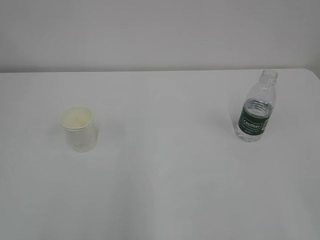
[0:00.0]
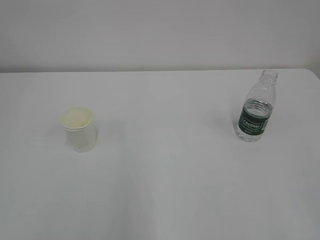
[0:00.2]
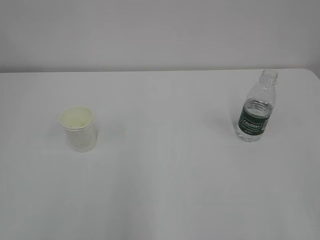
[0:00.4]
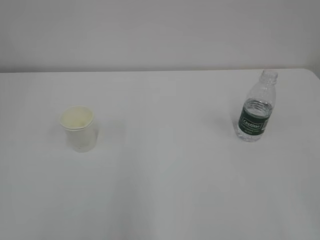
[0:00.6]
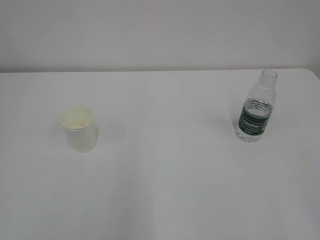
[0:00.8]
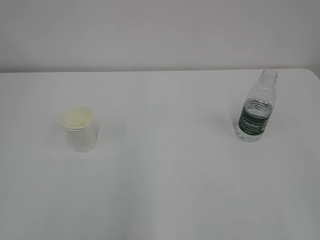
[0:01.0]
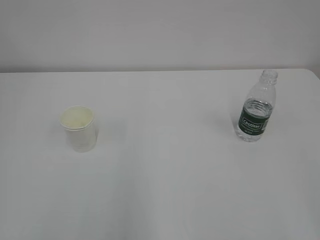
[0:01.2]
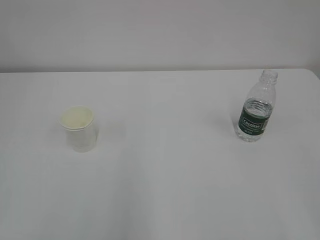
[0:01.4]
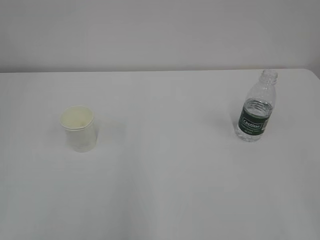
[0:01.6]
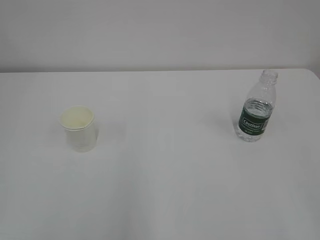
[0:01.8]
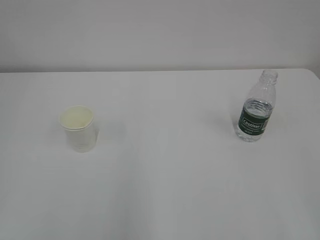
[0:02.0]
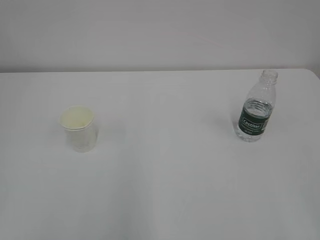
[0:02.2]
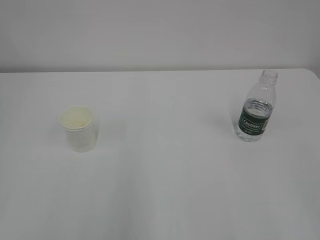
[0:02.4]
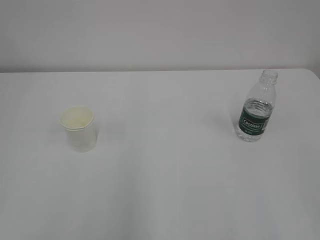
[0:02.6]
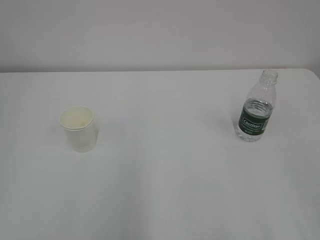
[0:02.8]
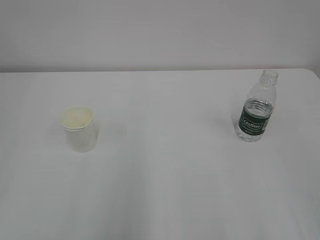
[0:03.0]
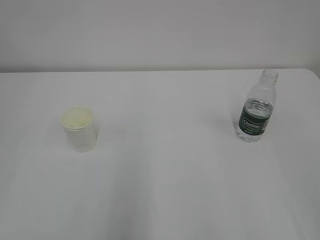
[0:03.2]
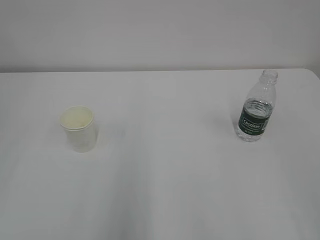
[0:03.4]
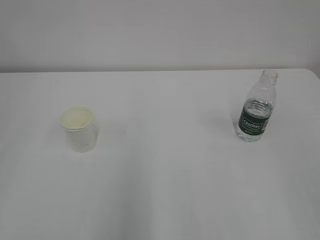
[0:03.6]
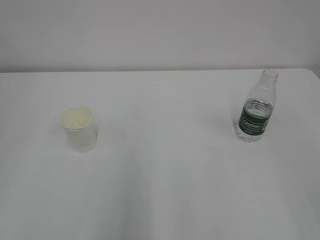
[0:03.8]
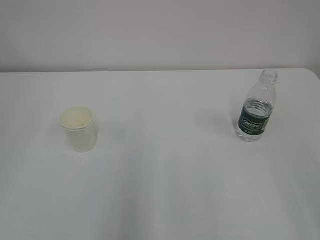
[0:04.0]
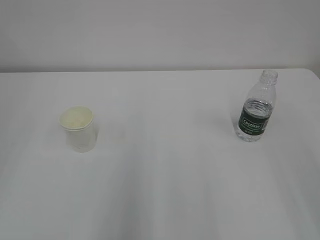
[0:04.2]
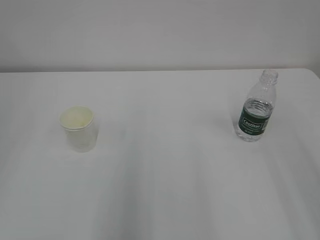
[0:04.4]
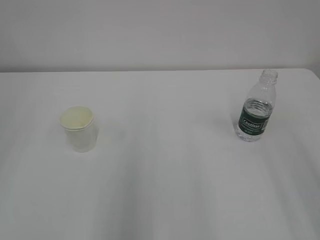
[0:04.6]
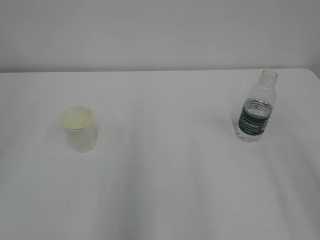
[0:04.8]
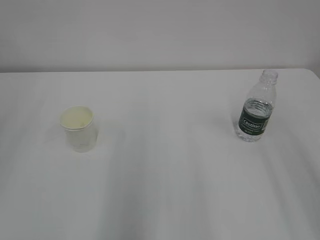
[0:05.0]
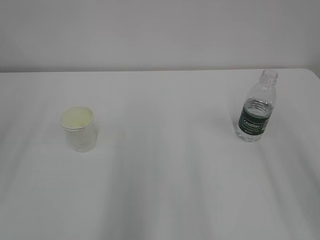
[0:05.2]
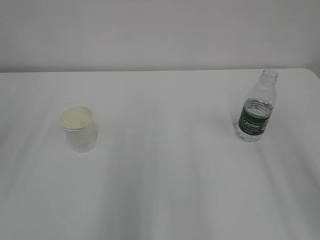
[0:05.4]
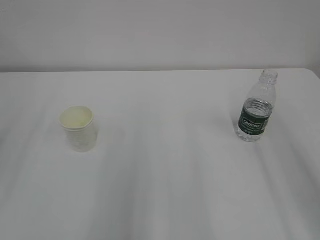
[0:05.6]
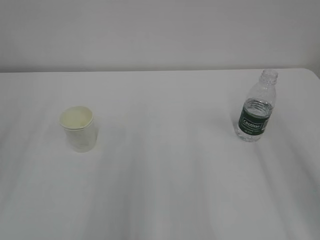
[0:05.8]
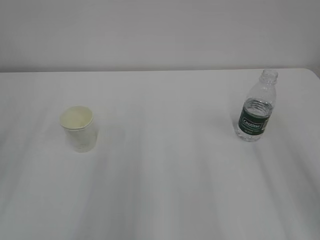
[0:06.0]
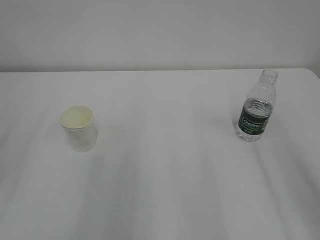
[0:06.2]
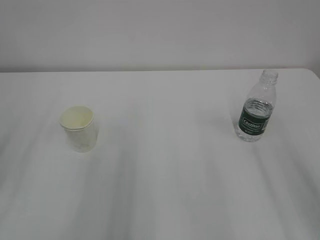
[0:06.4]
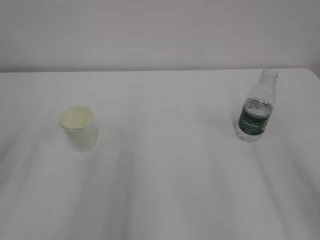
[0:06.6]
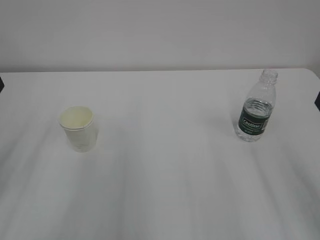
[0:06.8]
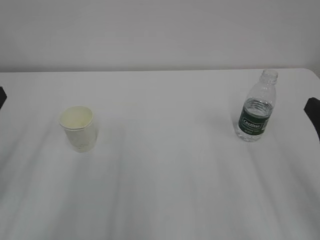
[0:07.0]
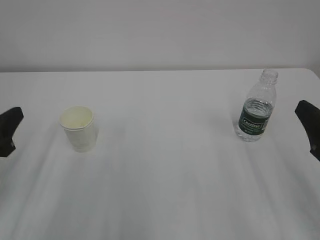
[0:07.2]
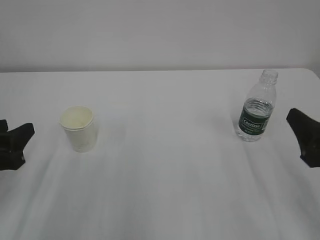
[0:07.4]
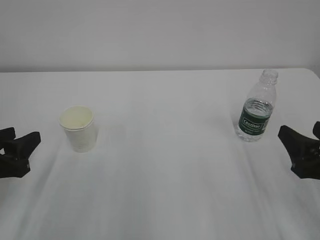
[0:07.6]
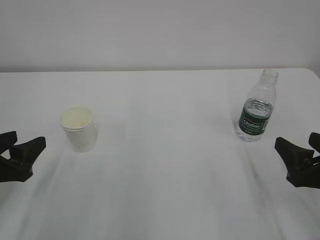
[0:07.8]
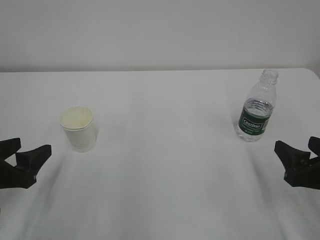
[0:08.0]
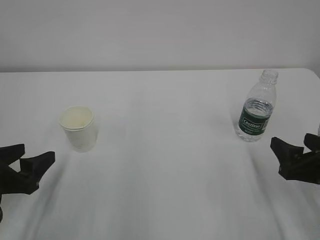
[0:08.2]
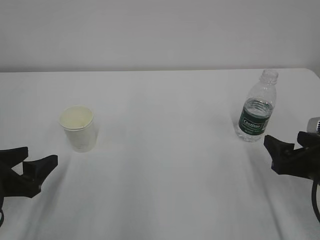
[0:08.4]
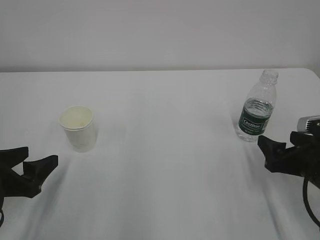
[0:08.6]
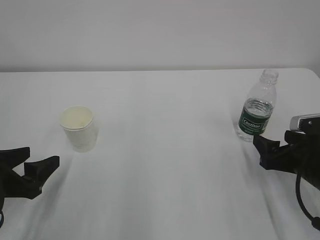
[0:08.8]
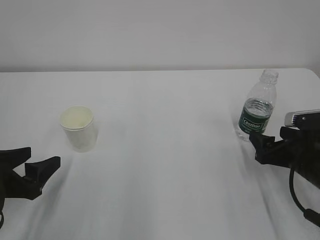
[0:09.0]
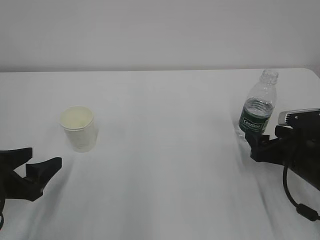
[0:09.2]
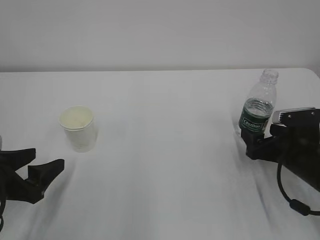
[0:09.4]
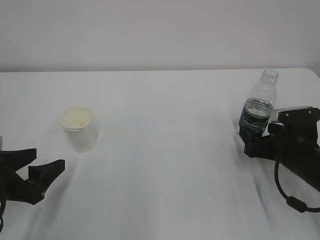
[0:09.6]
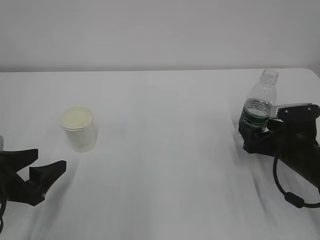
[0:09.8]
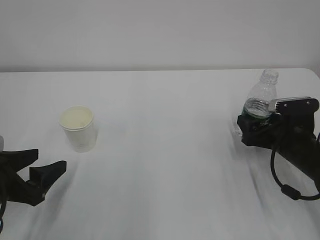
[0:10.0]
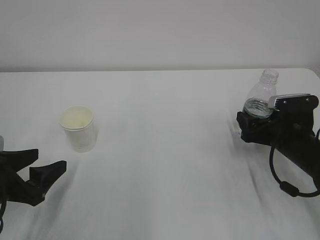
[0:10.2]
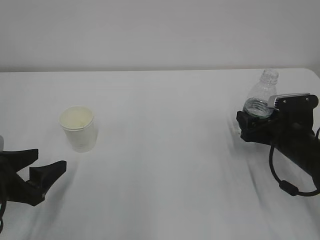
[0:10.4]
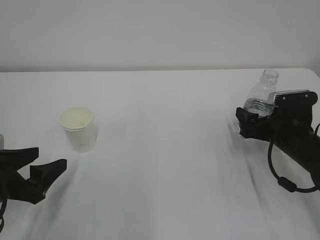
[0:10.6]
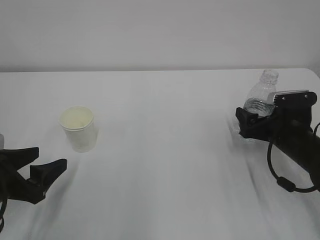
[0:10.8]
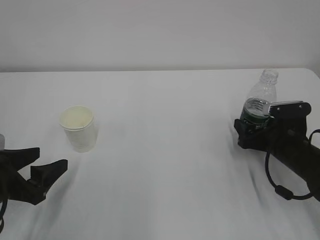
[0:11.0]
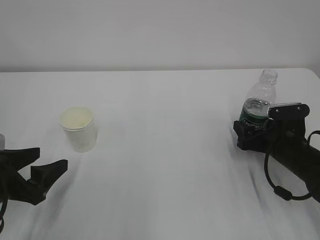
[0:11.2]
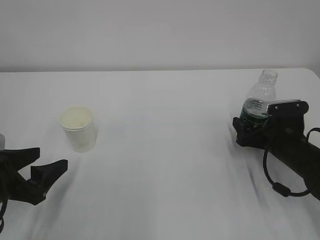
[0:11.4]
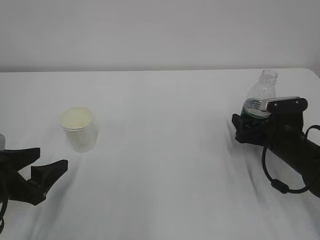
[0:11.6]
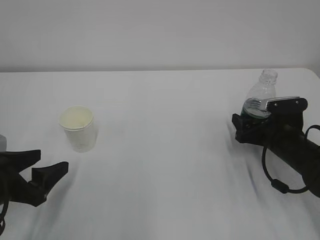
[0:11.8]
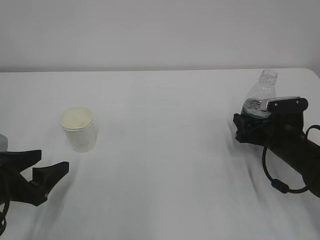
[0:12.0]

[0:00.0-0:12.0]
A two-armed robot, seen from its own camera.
0:06.0 to 0:07.6: The two grippers go roughly 15 cm downward.
0:07.6 to 0:09.0: The right gripper moves forward and downward, some 10 cm, while the left gripper opens.
0:09.0 to 0:10.4: The right gripper goes approximately 5 cm forward.
0:10.4 to 0:12.0: The grippers move only a little.

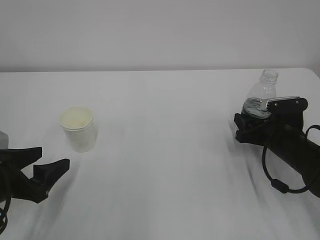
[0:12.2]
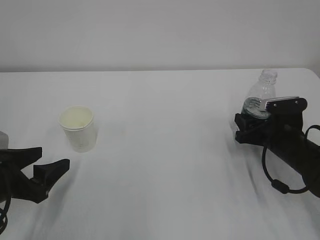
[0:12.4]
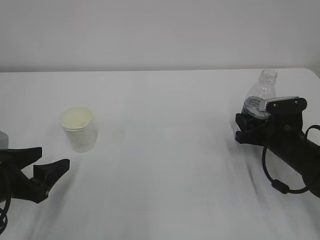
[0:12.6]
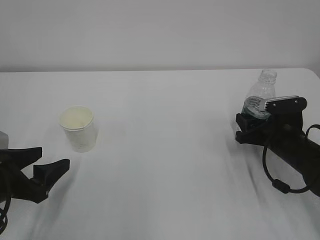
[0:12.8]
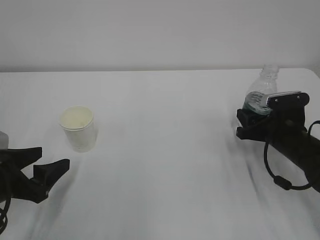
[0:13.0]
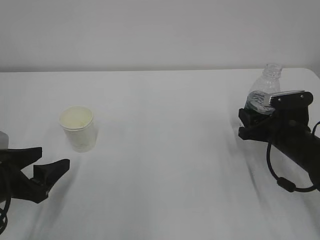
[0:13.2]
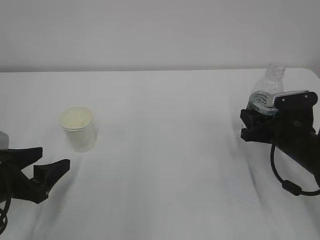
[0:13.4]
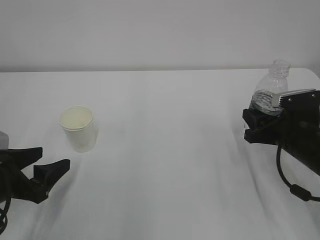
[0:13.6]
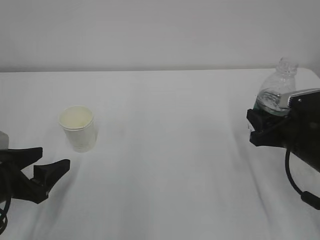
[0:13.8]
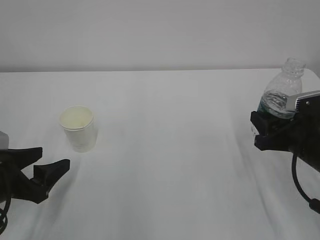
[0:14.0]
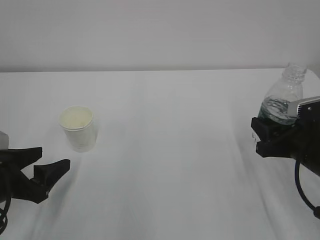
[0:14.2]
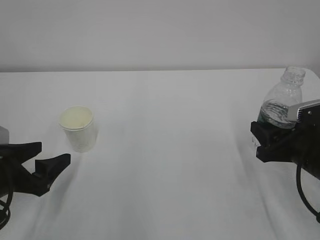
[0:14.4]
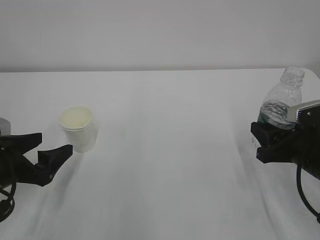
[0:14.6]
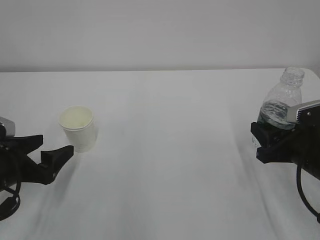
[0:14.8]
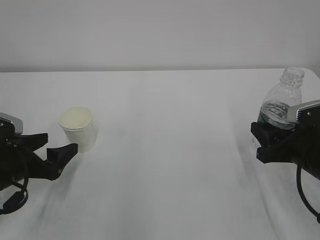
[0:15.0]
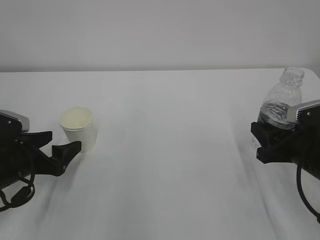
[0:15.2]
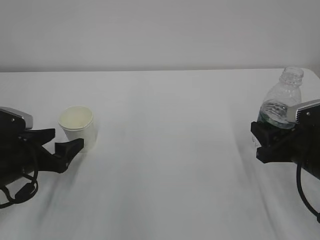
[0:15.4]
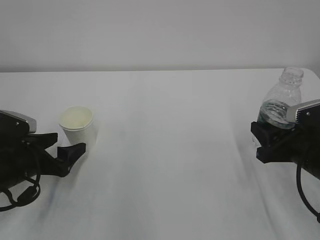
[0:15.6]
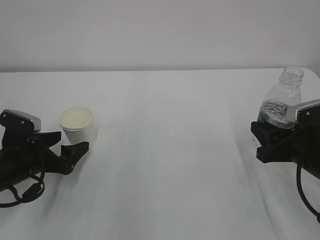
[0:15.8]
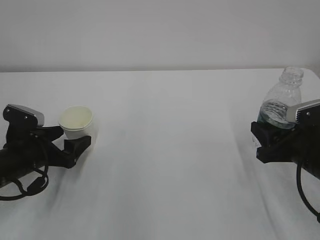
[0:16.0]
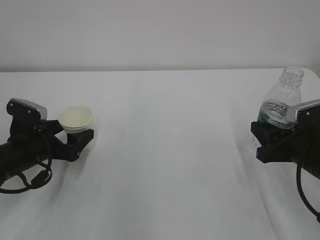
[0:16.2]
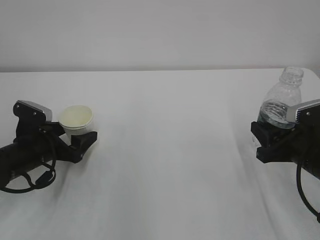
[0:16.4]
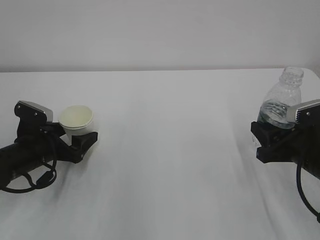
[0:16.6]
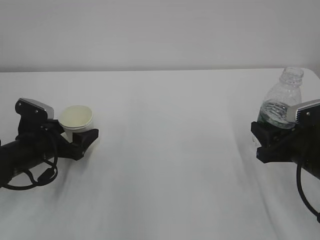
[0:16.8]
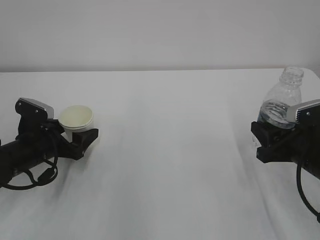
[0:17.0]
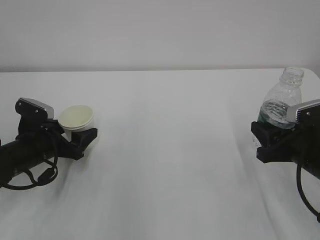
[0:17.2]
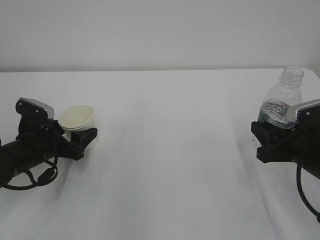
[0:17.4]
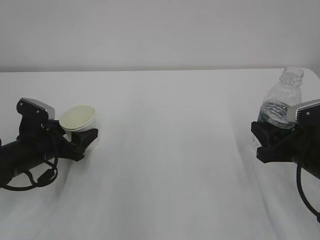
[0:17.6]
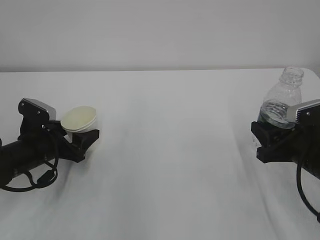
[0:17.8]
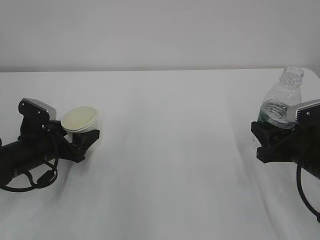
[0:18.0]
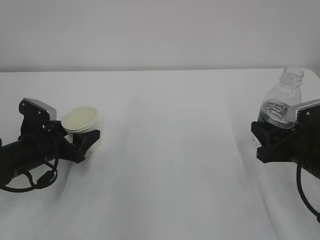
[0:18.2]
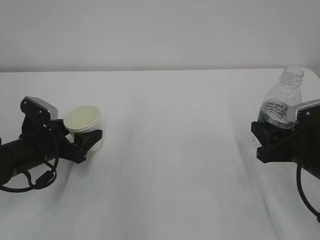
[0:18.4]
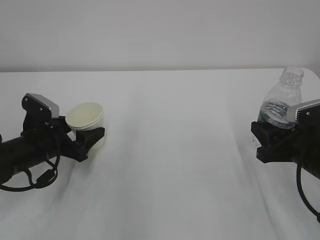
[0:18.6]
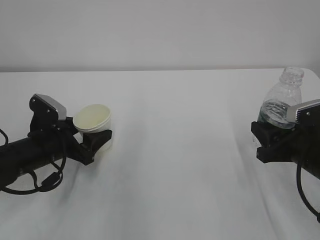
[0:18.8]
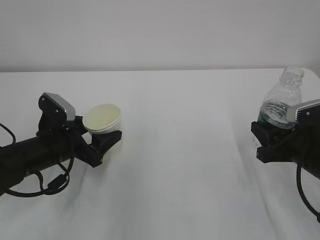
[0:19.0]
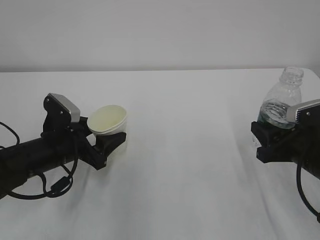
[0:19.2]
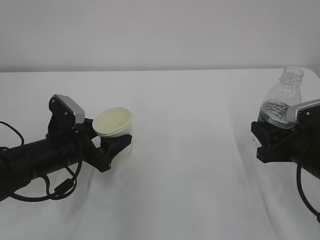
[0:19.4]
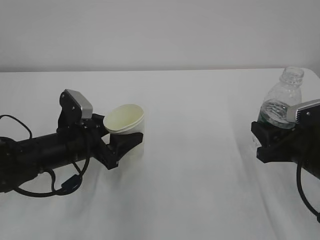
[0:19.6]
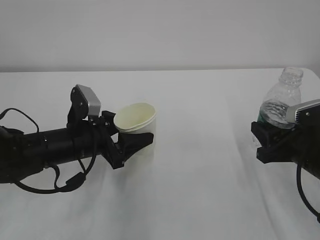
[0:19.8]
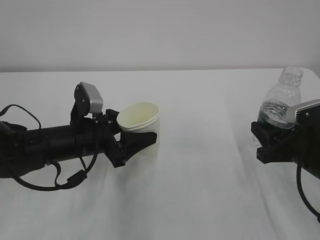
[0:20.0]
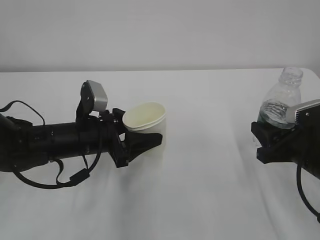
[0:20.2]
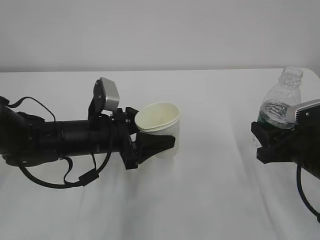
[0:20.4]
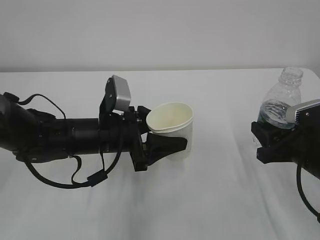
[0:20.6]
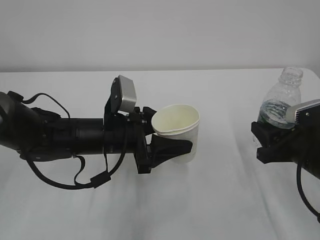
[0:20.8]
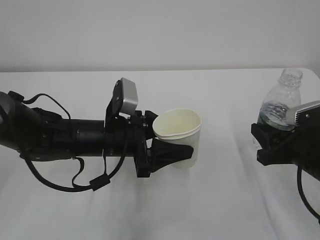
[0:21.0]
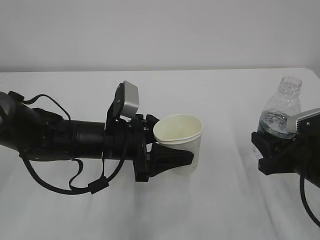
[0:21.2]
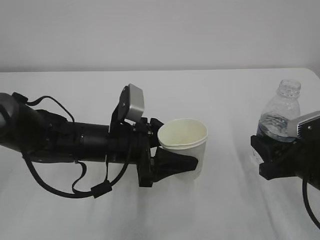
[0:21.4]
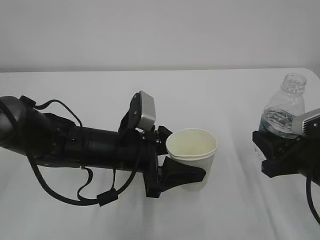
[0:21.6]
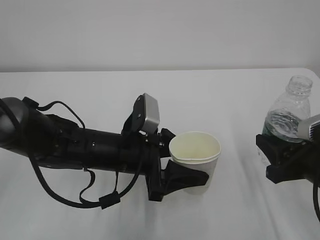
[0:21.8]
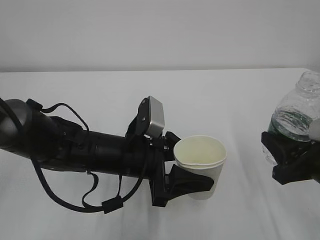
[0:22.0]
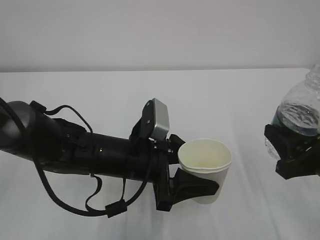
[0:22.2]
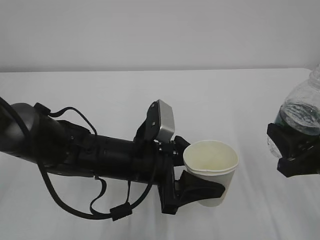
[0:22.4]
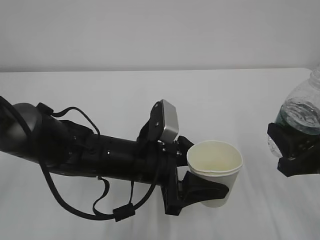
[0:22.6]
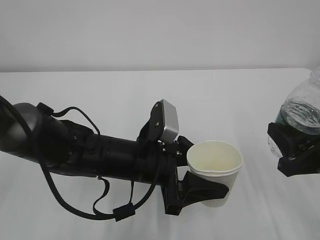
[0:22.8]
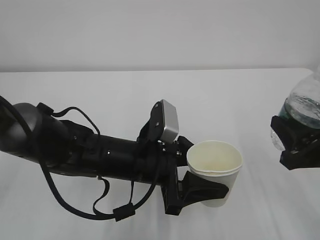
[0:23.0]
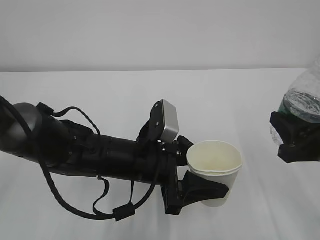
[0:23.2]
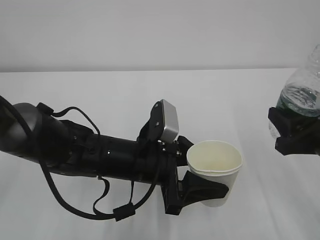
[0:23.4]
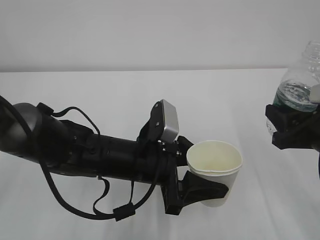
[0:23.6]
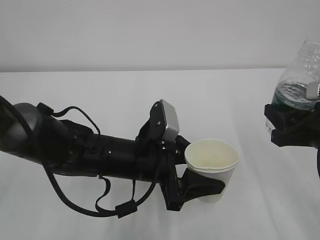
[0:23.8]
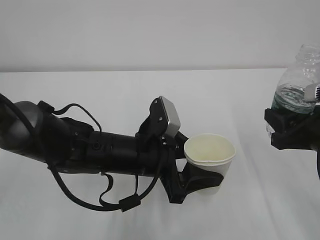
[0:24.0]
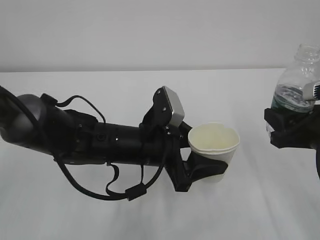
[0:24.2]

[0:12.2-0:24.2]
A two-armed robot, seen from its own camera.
0:12.2 to 0:13.8: The right gripper moves upward and backward, approximately 5 cm.
0:13.8 to 0:15.2: The left gripper shifts some 5 cm forward, and opens.
0:15.2 to 0:16.6: The left gripper ends up about 5 cm from where it was.
0:16.6 to 0:18.2: The left gripper closes its fingers.
0:18.2 to 0:19.8: The left gripper shifts some 10 cm to the right.
0:19.8 to 0:21.2: The left gripper shifts approximately 5 cm to the right.
0:21.2 to 0:22.6: The right gripper moves some 5 cm. The left gripper ends up roughly 5 cm from where it was.
